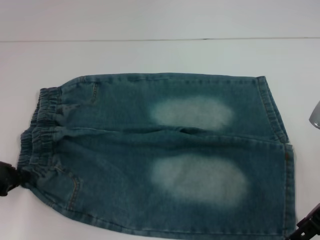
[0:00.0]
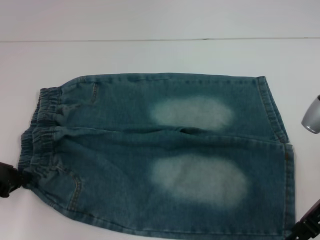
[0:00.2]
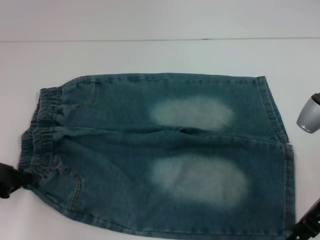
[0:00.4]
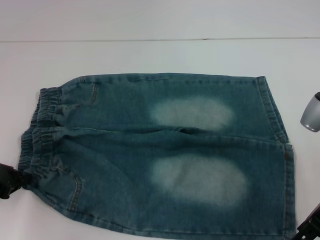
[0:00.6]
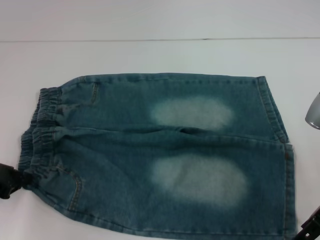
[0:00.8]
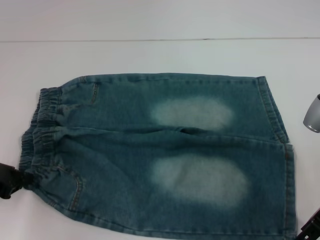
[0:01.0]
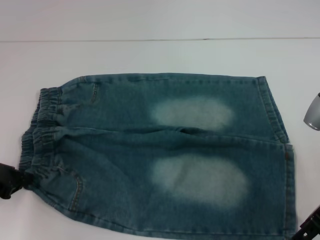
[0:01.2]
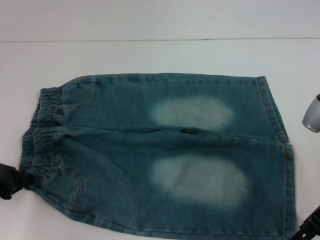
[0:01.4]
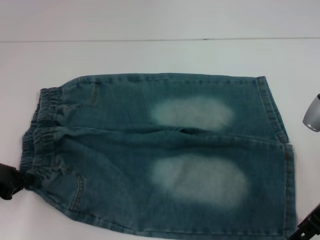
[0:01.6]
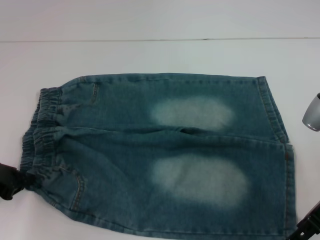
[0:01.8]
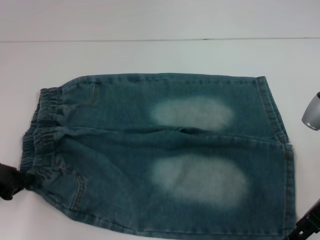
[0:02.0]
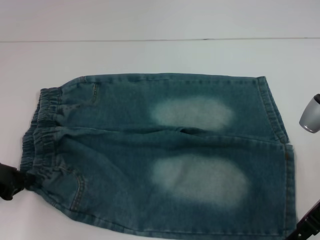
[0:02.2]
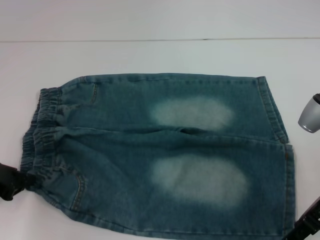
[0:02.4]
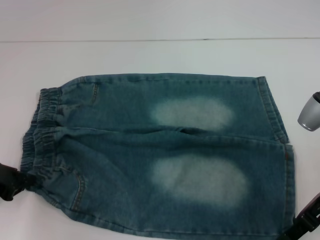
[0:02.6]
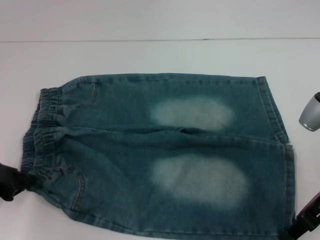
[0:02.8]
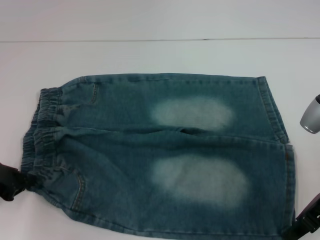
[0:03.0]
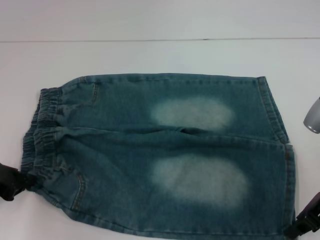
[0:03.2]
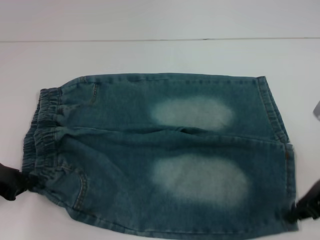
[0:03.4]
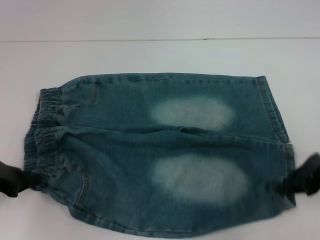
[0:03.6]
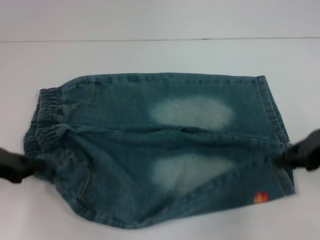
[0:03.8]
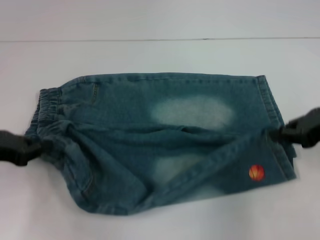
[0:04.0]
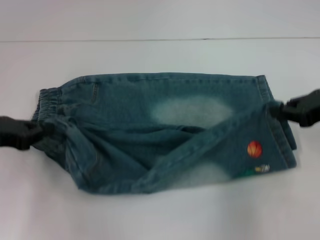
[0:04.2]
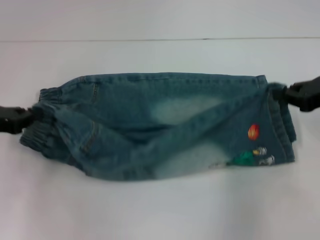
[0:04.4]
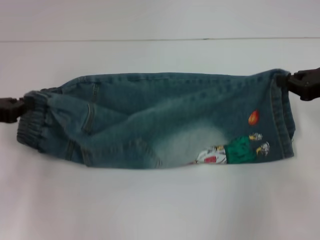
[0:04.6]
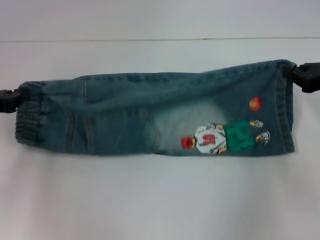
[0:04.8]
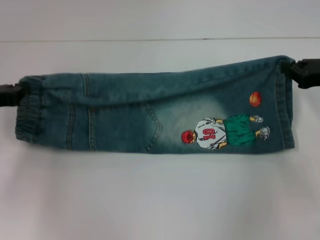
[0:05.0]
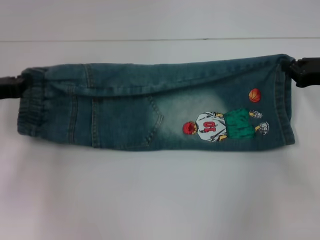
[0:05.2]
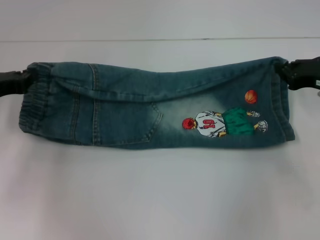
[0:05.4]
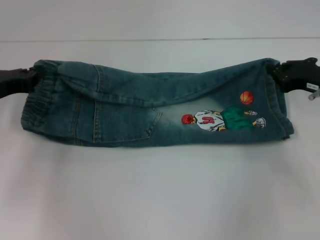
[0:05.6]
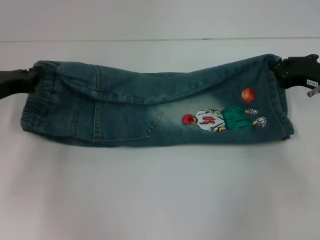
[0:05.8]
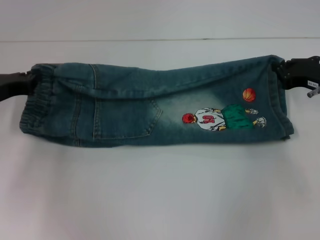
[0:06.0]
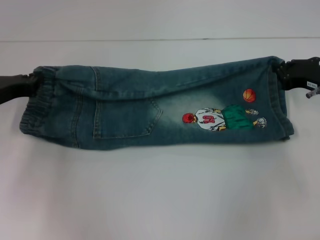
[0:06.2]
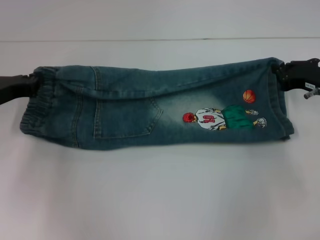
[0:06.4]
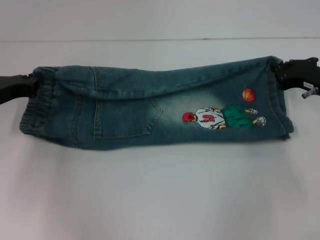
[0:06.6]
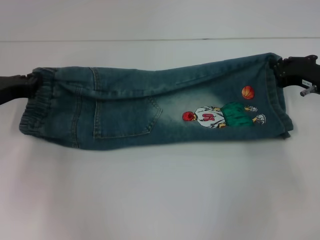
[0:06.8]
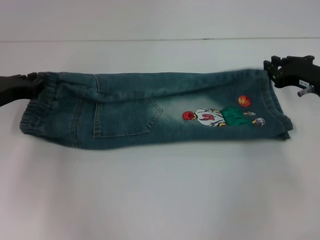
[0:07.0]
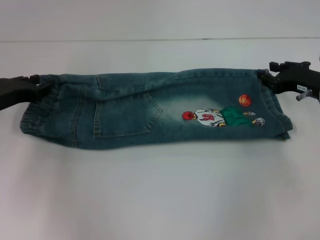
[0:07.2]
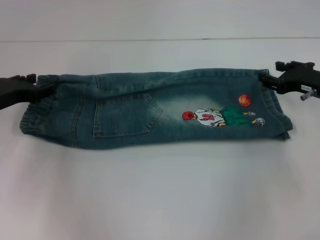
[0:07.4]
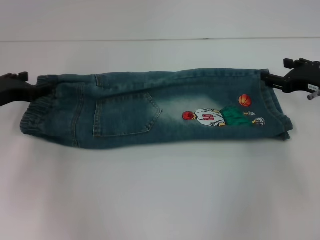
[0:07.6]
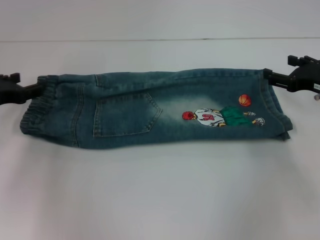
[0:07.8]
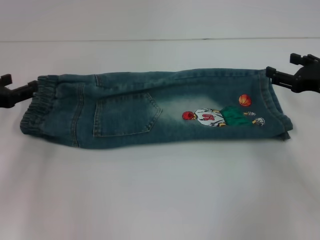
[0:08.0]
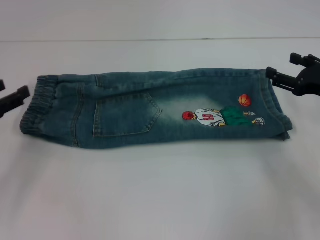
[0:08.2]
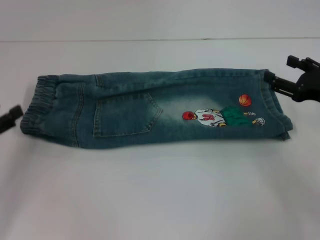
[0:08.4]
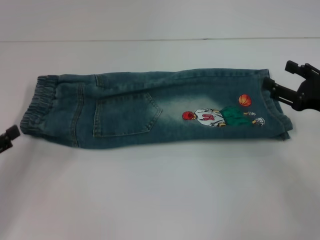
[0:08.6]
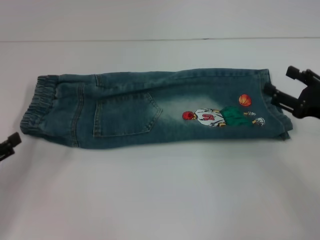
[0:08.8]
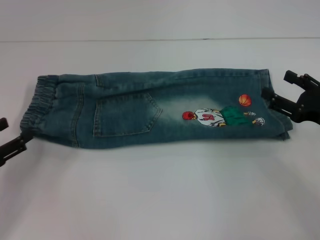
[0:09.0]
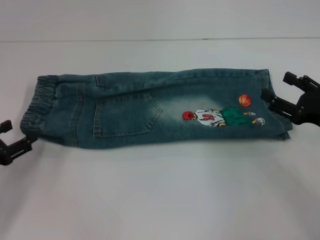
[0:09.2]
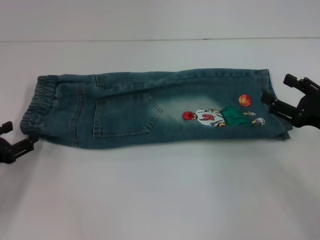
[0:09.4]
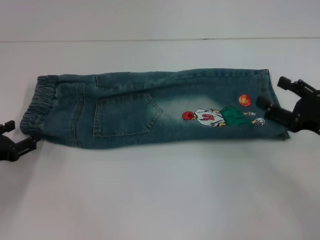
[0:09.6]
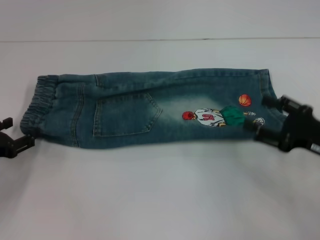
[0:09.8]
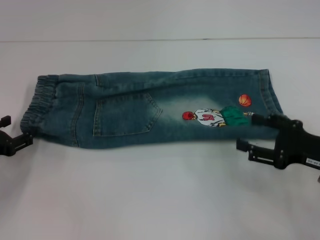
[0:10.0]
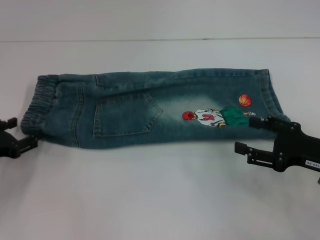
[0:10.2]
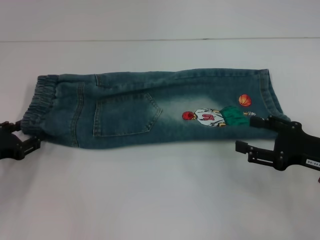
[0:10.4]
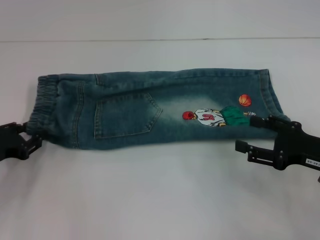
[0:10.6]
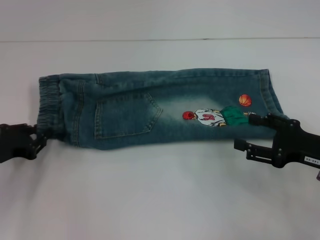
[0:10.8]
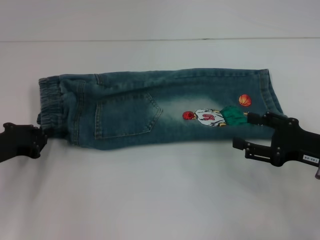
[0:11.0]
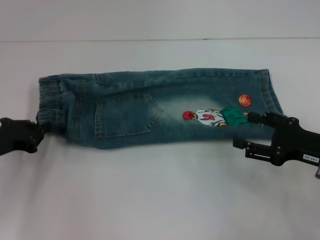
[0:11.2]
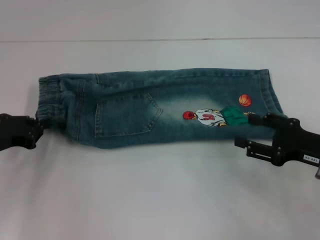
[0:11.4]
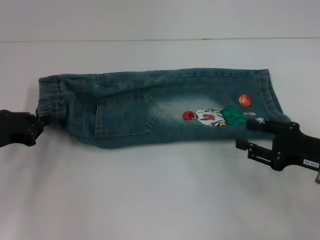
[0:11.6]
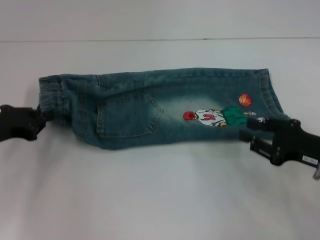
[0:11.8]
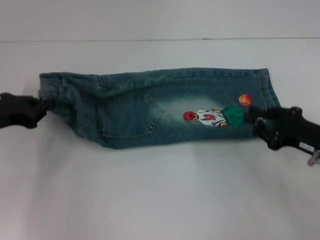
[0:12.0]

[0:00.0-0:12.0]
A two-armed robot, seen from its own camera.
Step, 0:00.0 to 0:03.2: Grab the lower right pant leg with your right hand.
Step, 0:03.4 to 0:07.6: Fold upward with your right hand.
Step, 0:07.8 to 0:11.2: Hold the waistband with your left hand.
0:00.0 to 0:01.6: Both grippers stay put.
0:01.6 to 0:03.0: The right gripper closes up.
0:03.0 to 0:04.4: The left gripper moves some 5 cm, while the right gripper shifts roughly 5 cm to the right.
0:04.4 to 0:06.0: The right gripper moves downward, some 5 cm, while the left gripper ends up roughly 5 cm from where it was.
0:06.0 to 0:07.6: The left gripper opens up; the right gripper opens.
0:07.6 to 0:09.0: The two grippers go some 10 cm backward.
0:09.0 to 0:10.4: The left gripper moves forward, approximately 5 cm.
0:10.4 to 0:12.0: The left gripper moves upward, roughly 5 cm, and closes its fingers. Meanwhile the right gripper closes its fingers.

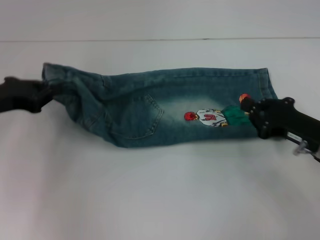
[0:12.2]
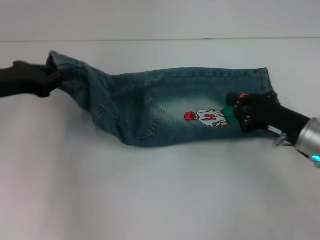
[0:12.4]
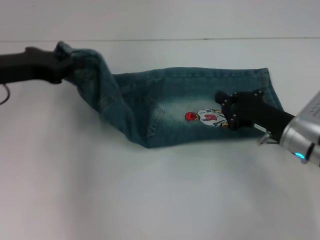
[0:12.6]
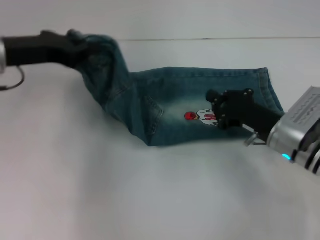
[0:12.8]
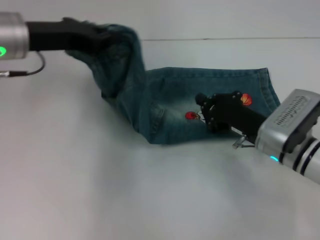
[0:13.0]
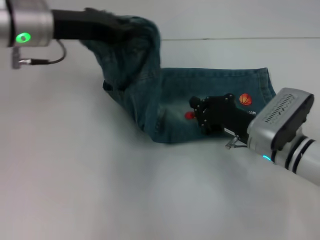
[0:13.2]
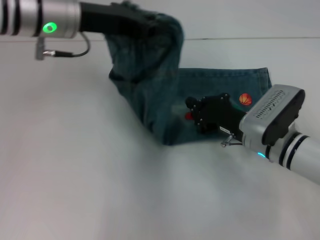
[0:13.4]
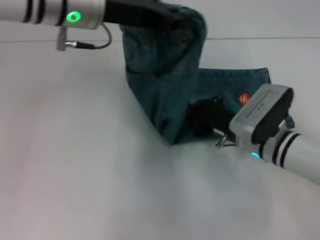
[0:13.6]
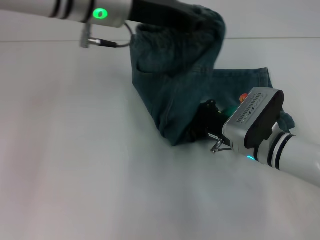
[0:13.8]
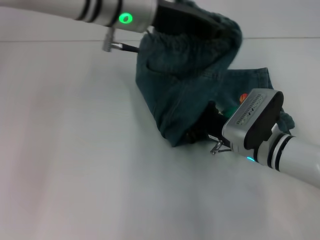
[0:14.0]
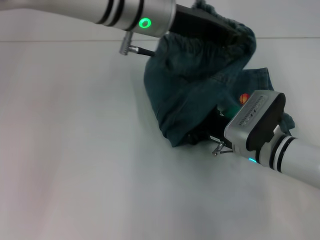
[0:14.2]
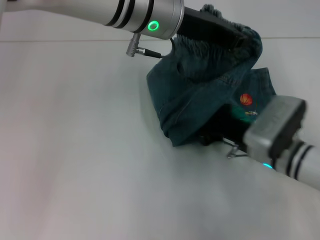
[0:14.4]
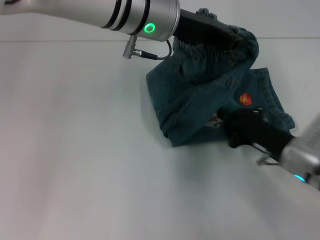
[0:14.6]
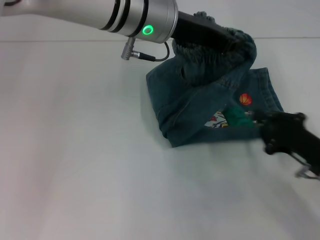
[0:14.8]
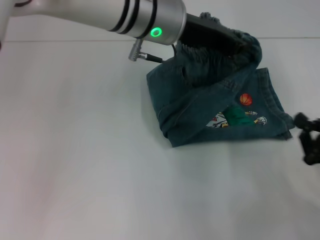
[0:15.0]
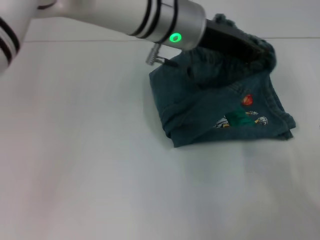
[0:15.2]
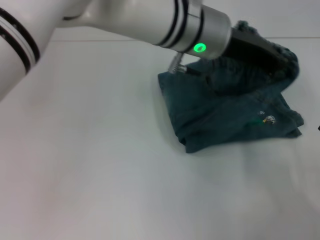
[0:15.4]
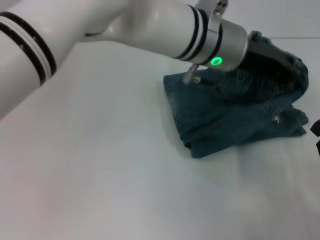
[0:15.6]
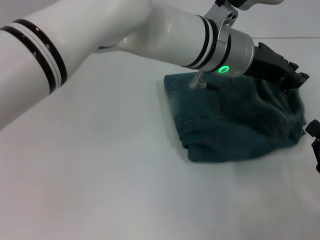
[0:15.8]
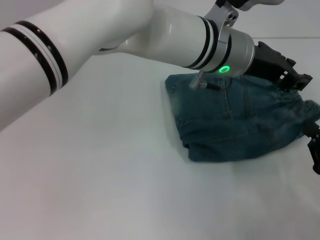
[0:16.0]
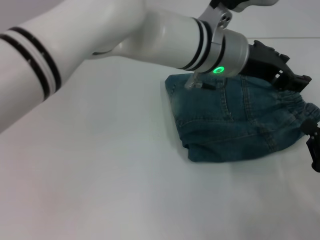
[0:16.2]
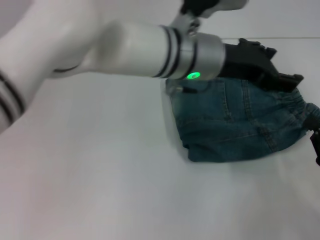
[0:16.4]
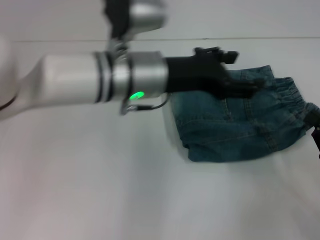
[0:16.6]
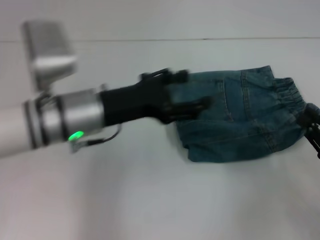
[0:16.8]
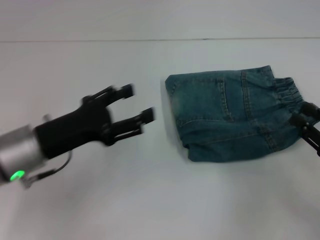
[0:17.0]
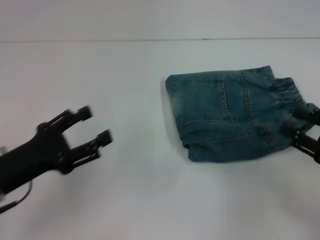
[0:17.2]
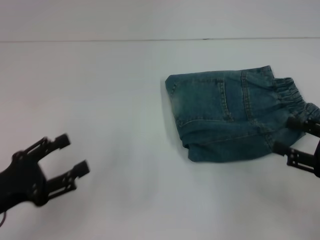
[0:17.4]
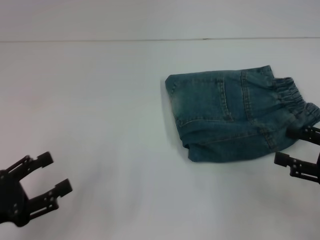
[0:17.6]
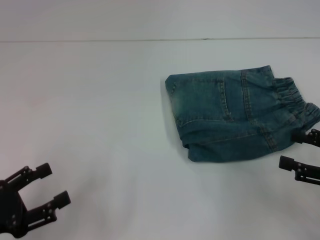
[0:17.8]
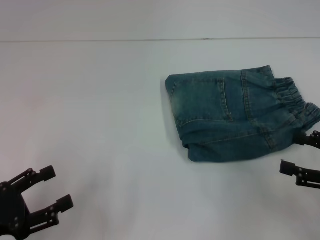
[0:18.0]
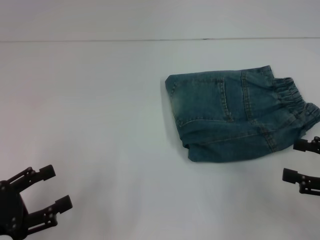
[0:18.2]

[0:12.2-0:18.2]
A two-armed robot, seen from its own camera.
Step, 0:12.2 to 0:14.4: Press the middle of the pants with your right hand.
Step, 0:14.6 to 0:16.2: Fold to the right with your left hand.
0:12.2 to 0:13.8: The left gripper moves to the right and upward, approximately 25 cm, while the right gripper is displaced to the left by some 10 cm.
0:13.8 to 0:15.2: The left gripper goes about 10 cm to the right. The right gripper heads to the right and backward, covering some 25 cm.
0:15.2 to 0:16.6: The left gripper travels downward by some 5 cm, and opens up.
0:16.6 to 0:18.2: The left gripper goes roughly 35 cm to the left, backward and downward. The right gripper moves about 5 cm, and opens its fingers.
